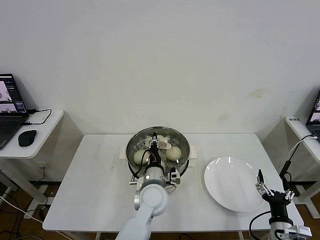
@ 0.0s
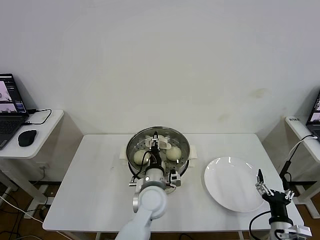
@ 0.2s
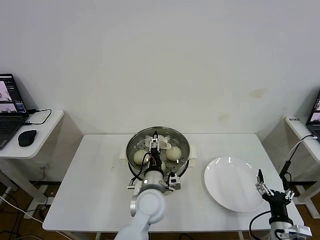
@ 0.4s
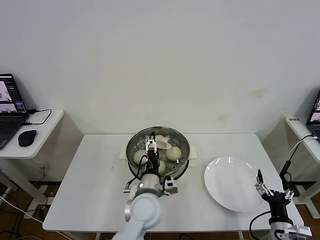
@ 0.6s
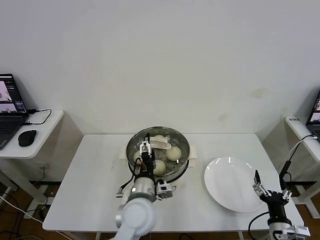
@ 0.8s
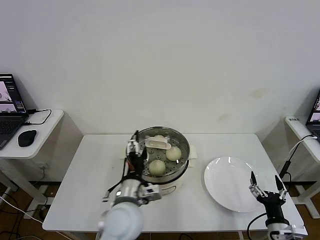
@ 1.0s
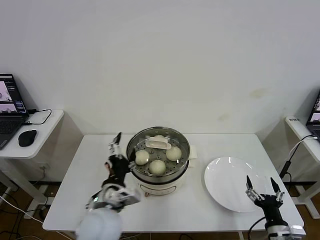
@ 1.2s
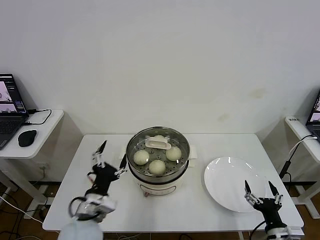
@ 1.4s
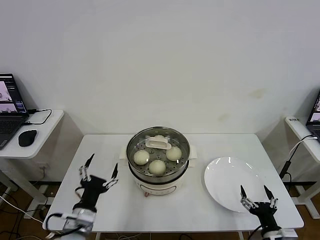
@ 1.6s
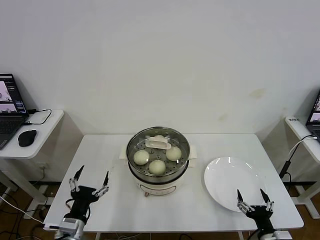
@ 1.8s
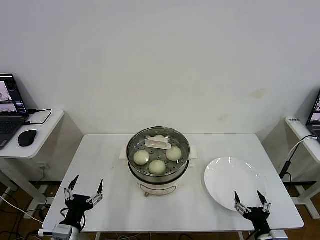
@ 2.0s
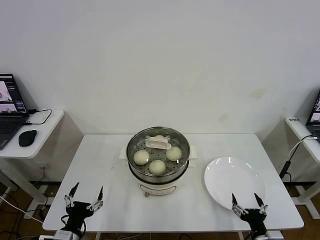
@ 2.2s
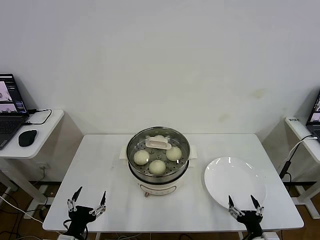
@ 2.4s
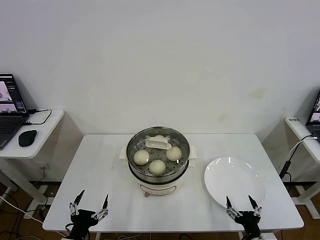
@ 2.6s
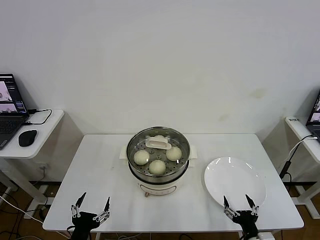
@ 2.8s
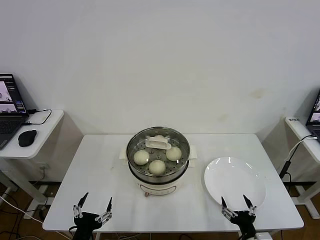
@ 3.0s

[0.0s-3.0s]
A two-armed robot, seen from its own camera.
0.0s to 1.6s: The left gripper shifts approximately 25 cm to the left and backward, and opens its fingers.
1.6s to 3.0s: The right gripper shifts some 5 cm to the left, while the left gripper shifts approximately 10 cm backward and downward.

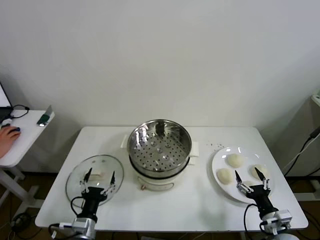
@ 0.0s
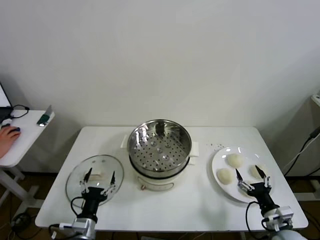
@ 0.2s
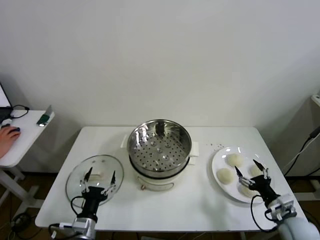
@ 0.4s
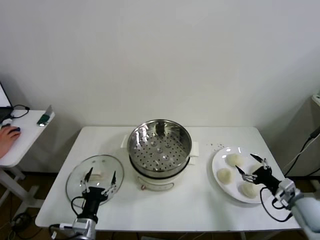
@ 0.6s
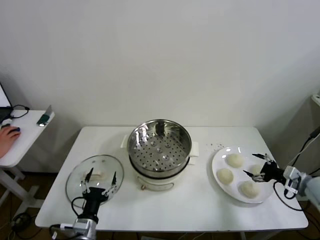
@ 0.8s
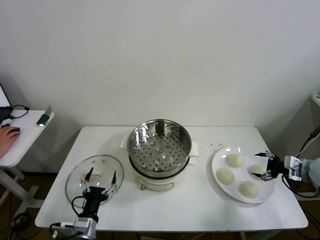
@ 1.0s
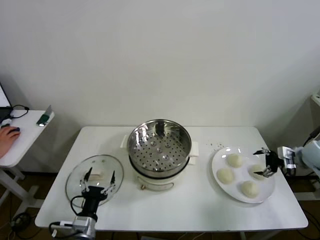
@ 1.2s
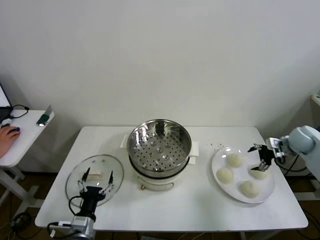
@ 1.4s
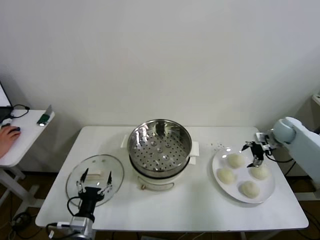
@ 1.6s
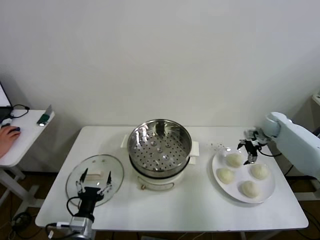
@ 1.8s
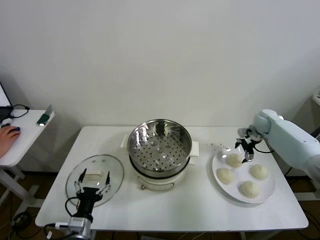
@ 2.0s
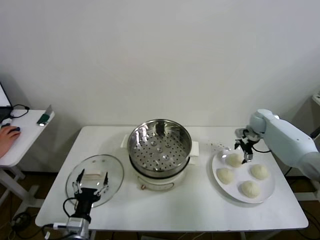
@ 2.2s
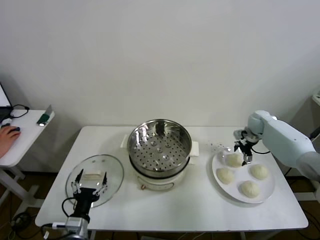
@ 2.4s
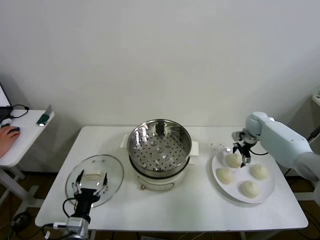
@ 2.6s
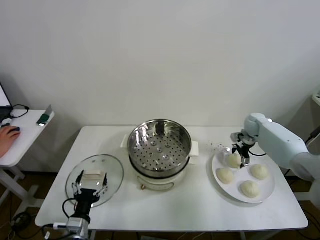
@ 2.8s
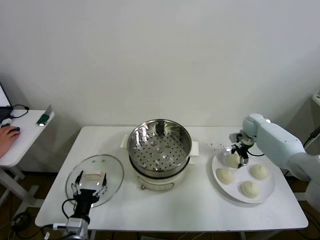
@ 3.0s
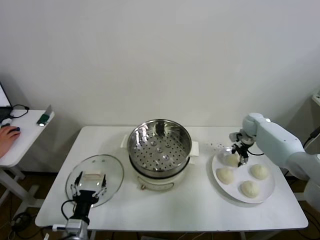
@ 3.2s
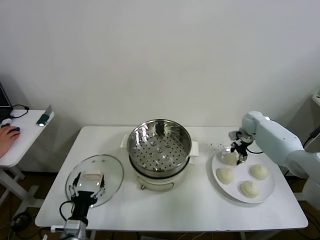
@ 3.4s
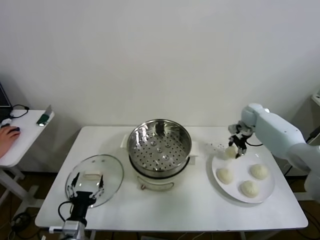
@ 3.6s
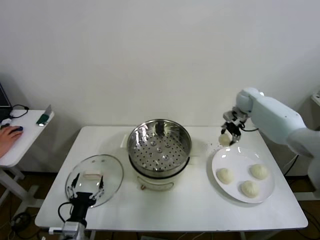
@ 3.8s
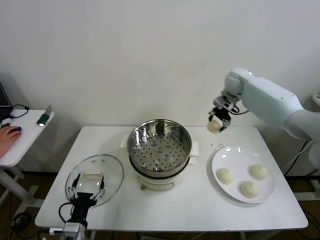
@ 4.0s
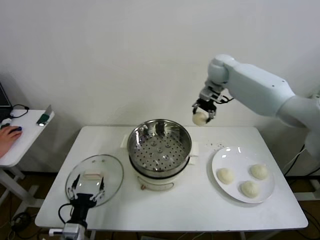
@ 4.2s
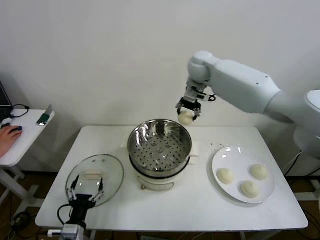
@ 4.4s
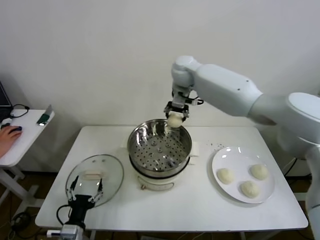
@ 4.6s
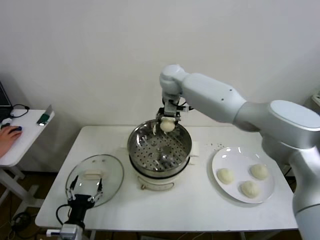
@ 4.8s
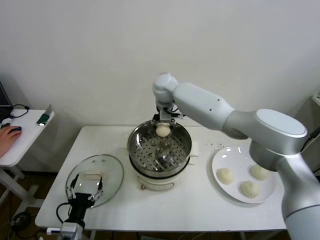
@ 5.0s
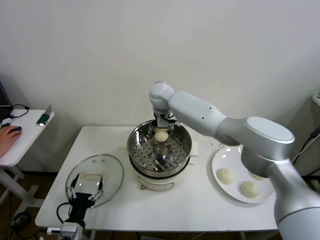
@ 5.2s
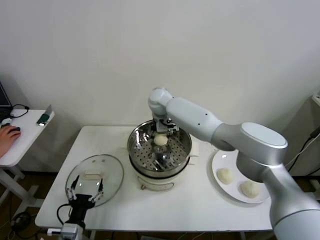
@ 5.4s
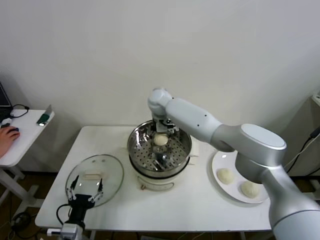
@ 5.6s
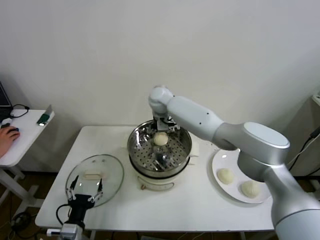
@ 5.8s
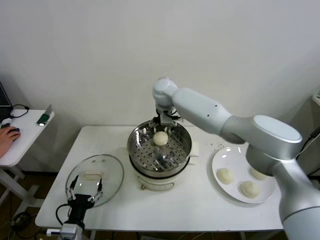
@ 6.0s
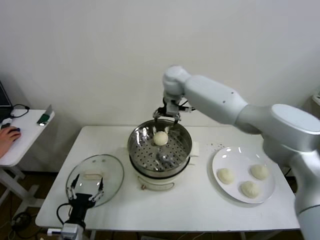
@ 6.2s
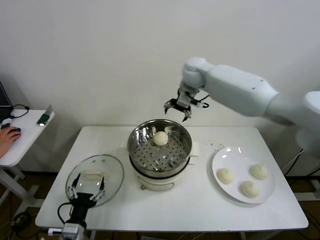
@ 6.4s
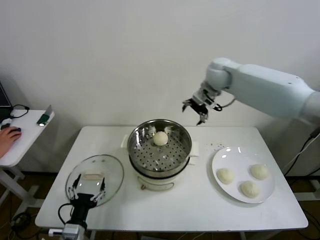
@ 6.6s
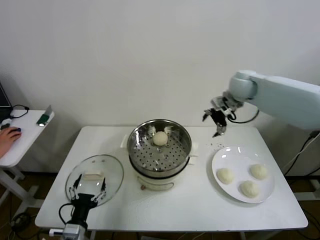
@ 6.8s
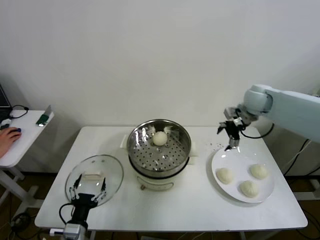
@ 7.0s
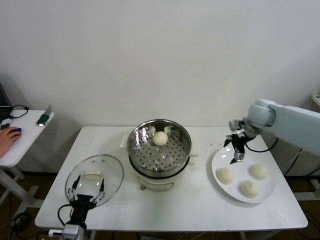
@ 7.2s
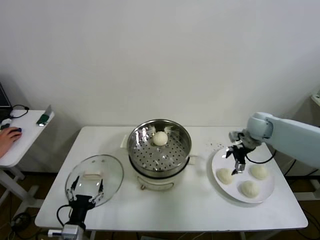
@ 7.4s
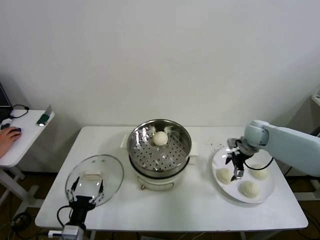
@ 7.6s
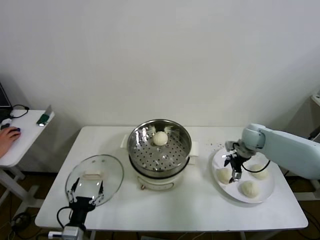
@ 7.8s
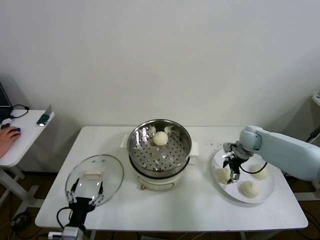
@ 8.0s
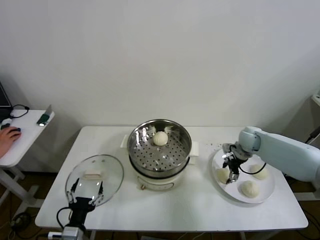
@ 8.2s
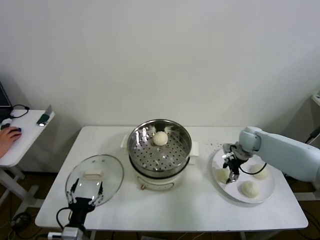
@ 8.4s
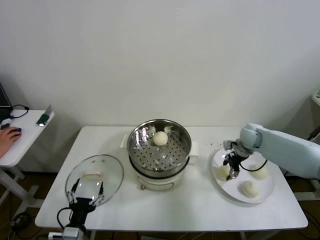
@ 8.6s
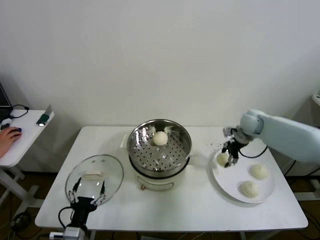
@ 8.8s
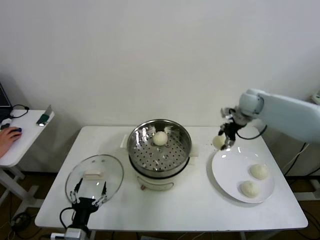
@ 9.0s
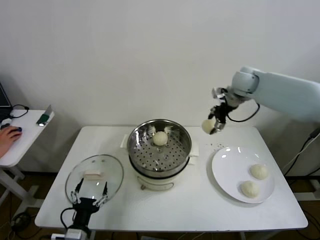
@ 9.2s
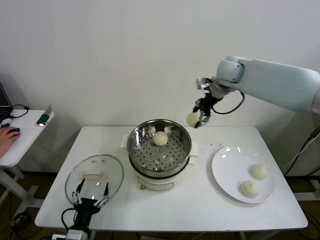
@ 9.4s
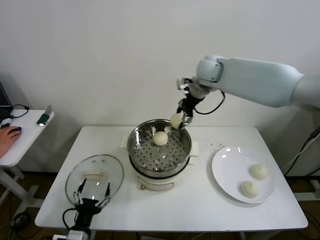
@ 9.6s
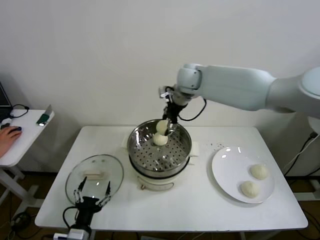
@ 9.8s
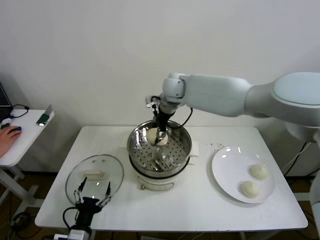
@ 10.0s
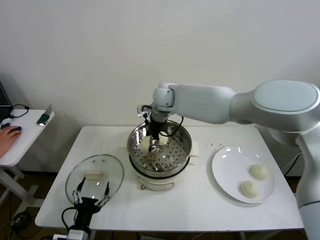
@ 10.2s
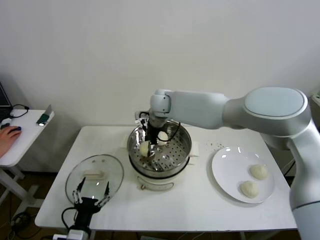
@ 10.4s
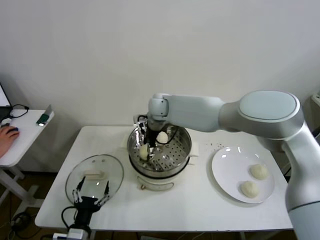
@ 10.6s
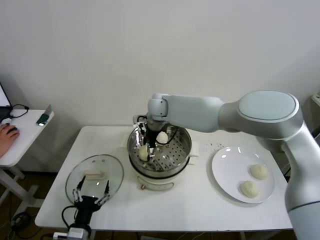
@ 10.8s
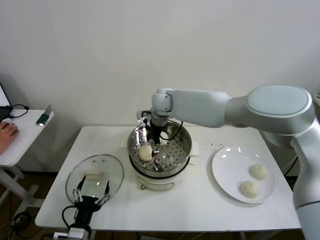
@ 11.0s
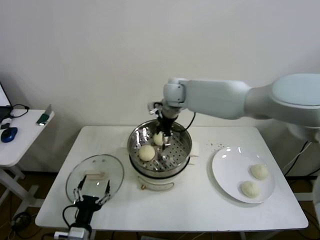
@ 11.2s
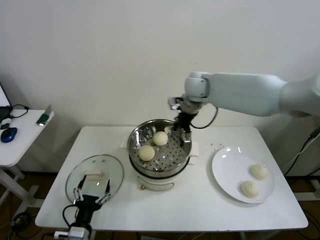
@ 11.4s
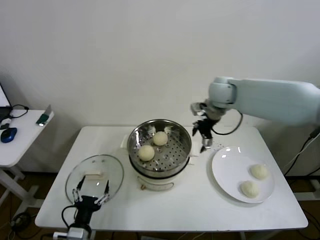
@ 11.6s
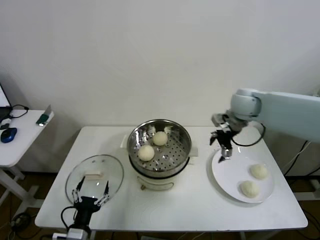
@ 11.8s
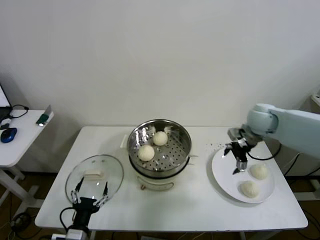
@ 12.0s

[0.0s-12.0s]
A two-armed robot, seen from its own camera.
Step, 0.0s to 3.2s: Grasp the baozi in the plate with right gripper.
Step, 3.4s to 5.4s: Place the baozi on the steamer with right gripper.
Step, 5.6s to 8.4s: Grasp the baozi in the plate with right gripper.
Step, 8.6s to 10.6s: Place the baozi on the steamer with right gripper.
1.6s to 3.0s: The right gripper is displaced to the left and forward by roughly 10 cm, and closes.
3.0s to 4.4s: The right gripper moves to the left and upward, approximately 40 cm.
4.4s to 6.0s: The right gripper is displaced to the left and downward by about 10 cm, and opens its fingers.
6.0s to 7.6s: The right gripper shifts approximately 35 cm to the right and downward.
7.6s to 9.0s: The right gripper is displaced upward and forward by some 15 cm, and closes up.
9.0s to 10.4s: The right gripper shifts roughly 30 cm to the left.
10.4s to 12.0s: The right gripper is displaced to the right by roughly 35 cm, and opens up.

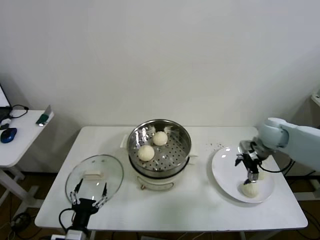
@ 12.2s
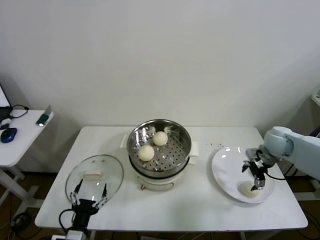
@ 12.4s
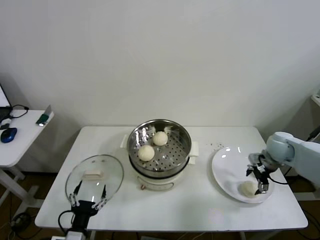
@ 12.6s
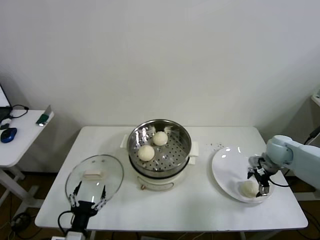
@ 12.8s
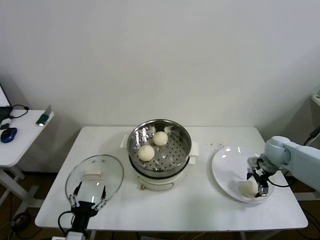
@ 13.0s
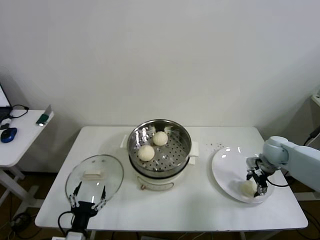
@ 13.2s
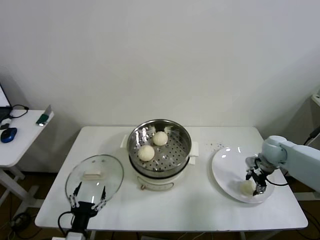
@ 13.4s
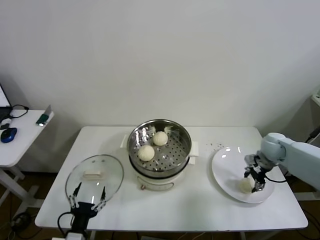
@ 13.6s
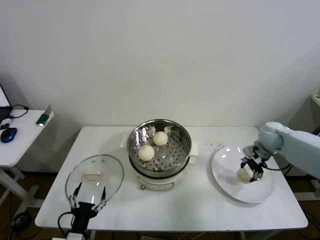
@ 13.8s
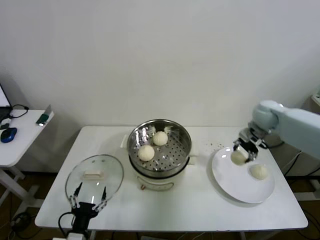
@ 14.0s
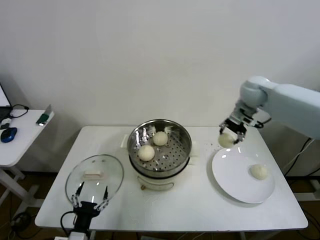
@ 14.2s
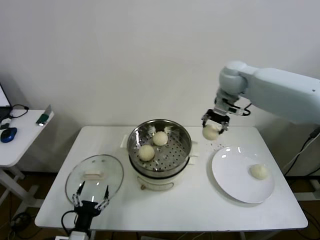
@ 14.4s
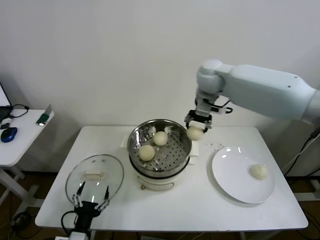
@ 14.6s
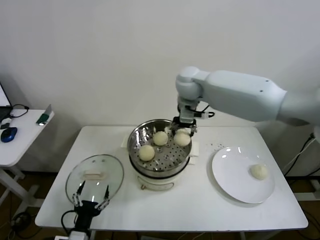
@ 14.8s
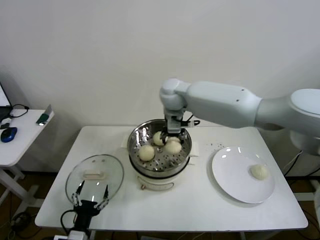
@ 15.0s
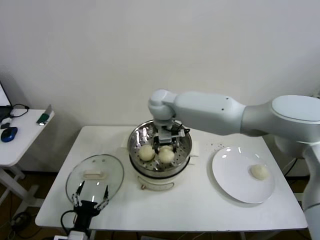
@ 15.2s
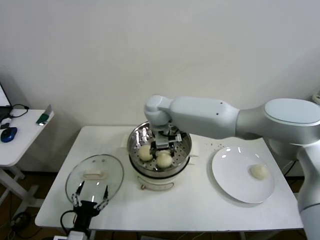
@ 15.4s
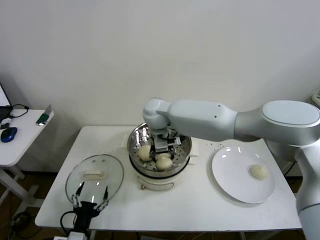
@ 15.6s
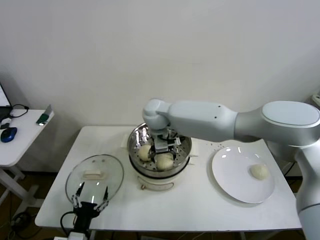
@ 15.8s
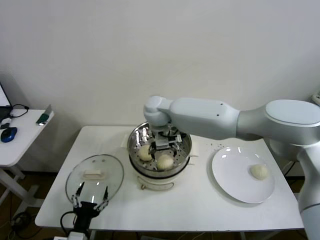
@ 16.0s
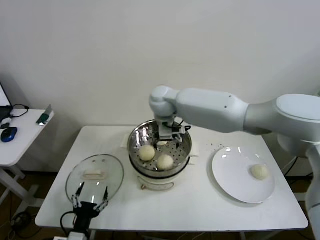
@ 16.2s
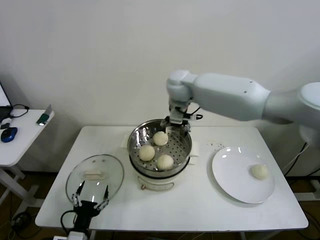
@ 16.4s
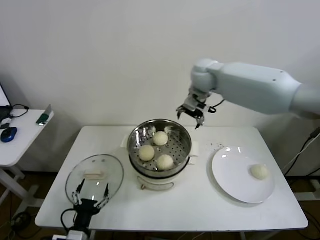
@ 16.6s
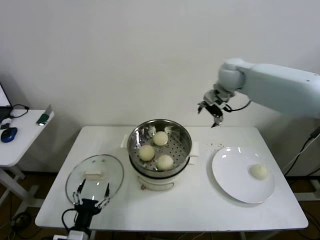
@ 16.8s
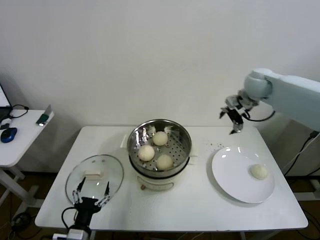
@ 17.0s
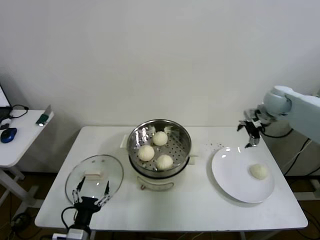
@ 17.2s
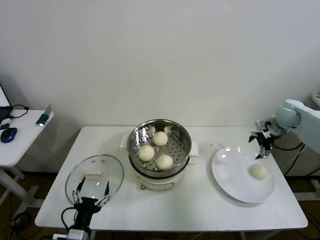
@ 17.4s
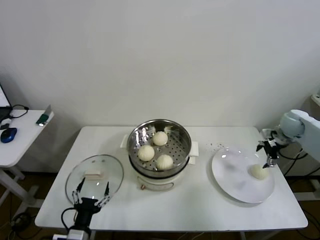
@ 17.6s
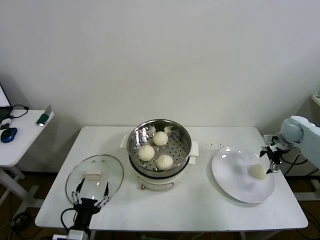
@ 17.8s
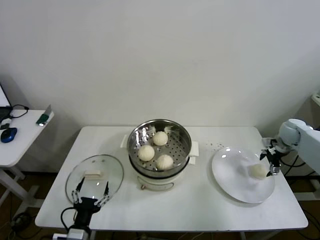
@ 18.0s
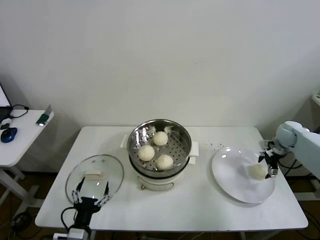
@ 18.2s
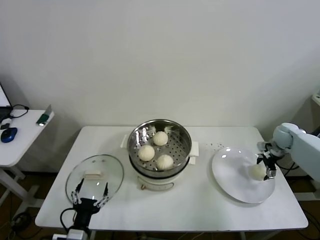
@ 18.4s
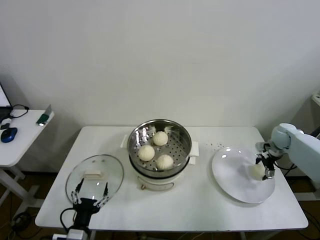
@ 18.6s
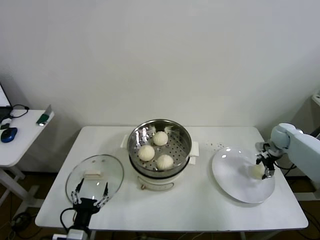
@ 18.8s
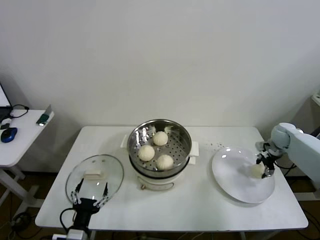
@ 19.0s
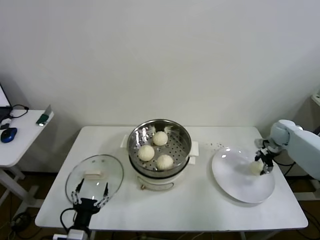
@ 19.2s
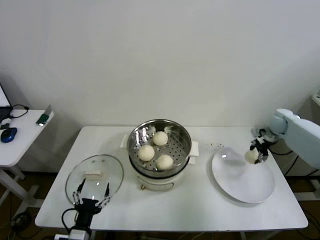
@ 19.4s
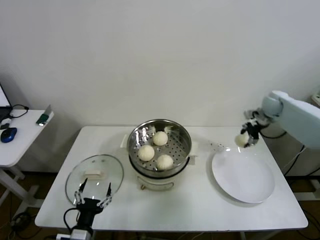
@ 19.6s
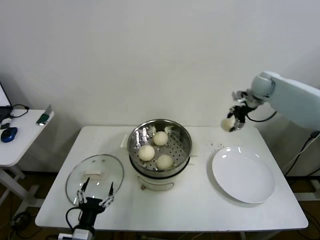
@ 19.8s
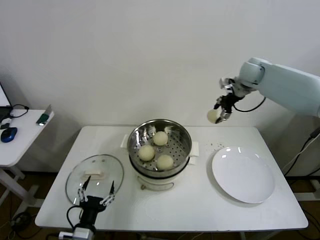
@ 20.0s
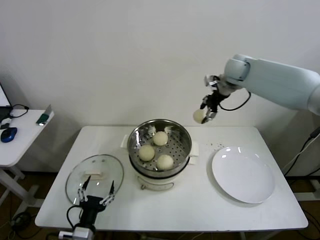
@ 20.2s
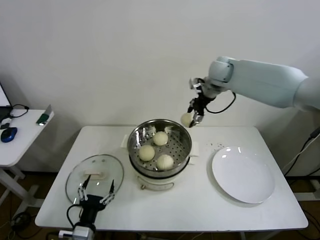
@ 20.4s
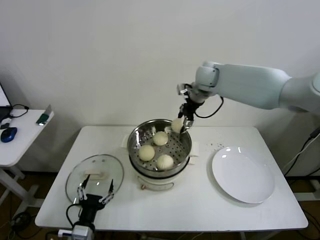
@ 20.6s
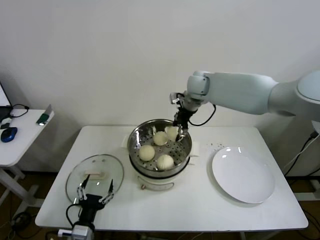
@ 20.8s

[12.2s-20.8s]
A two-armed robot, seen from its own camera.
Step, 13.6s to 15.8s: Place the baozi on the steamer with right gripper.
Step, 16.0s to 18.8s: Grasp the baozi in the plate with right gripper.
12.2s to 13.6s: The right gripper shifts roughly 5 cm downward, and closes its fingers.
13.6s to 15.0s: The right gripper moves to the left and upward, approximately 40 cm.
15.0s to 16.6s: The right gripper heads to the right and upward, covering about 15 cm, and opens its fingers.
16.6s to 18.0s: The right gripper is displaced to the right and downward by some 40 cm.
18.0s to 19.4s: The right gripper moves about 5 cm, and closes.
19.4s to 20.8s: The right gripper shifts about 35 cm to the left and upward.
